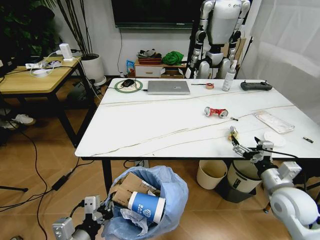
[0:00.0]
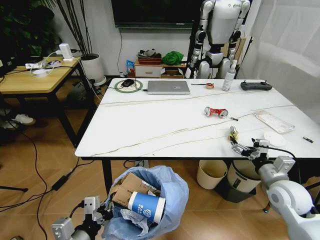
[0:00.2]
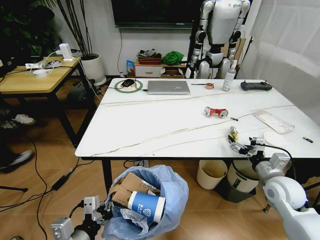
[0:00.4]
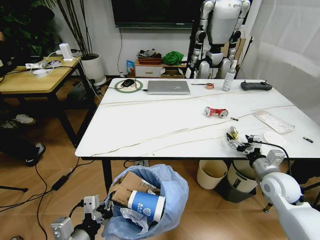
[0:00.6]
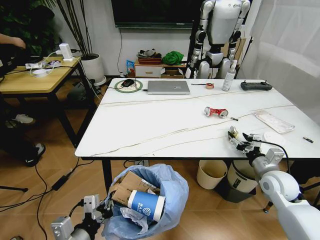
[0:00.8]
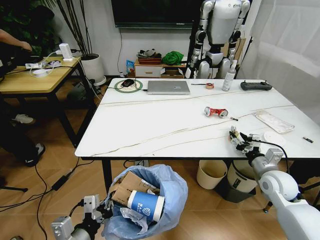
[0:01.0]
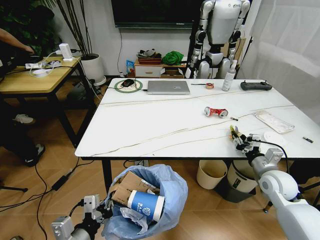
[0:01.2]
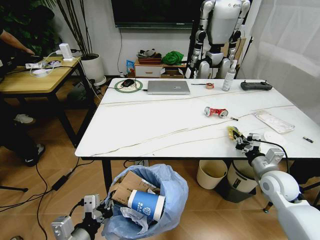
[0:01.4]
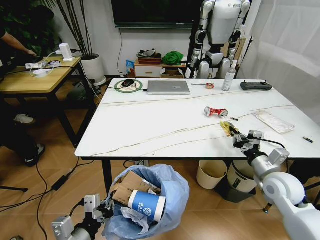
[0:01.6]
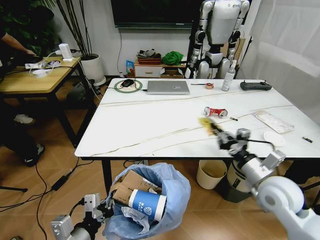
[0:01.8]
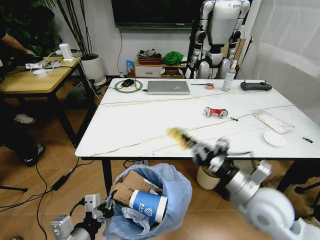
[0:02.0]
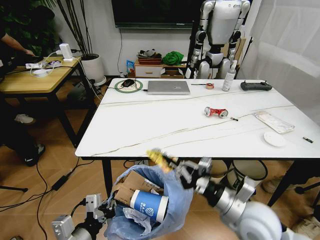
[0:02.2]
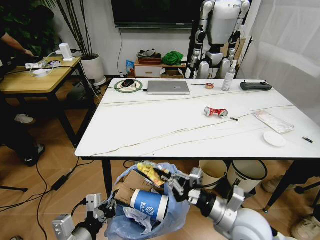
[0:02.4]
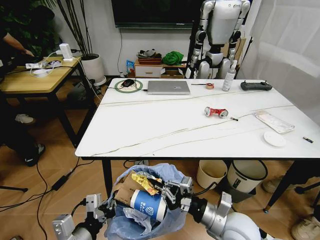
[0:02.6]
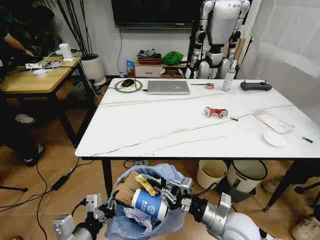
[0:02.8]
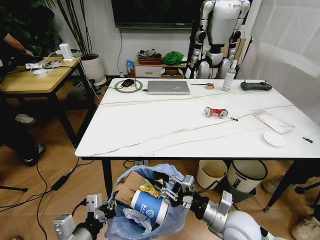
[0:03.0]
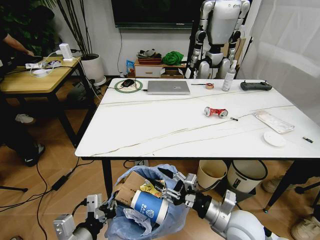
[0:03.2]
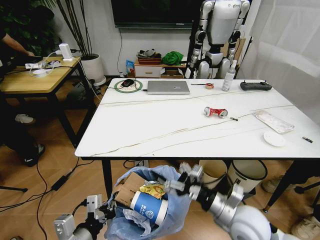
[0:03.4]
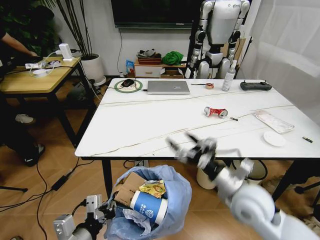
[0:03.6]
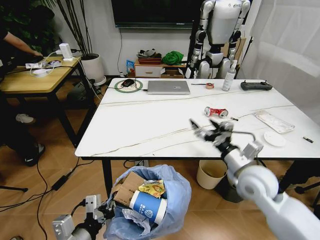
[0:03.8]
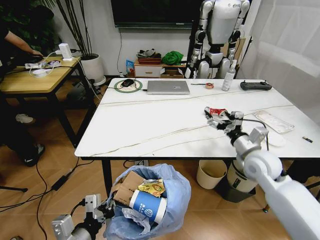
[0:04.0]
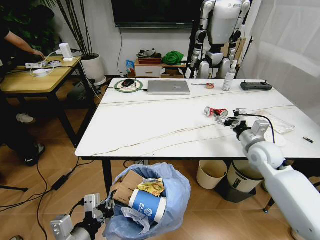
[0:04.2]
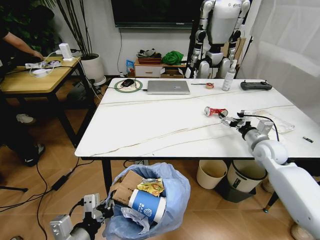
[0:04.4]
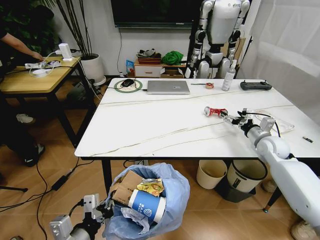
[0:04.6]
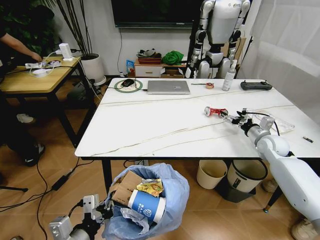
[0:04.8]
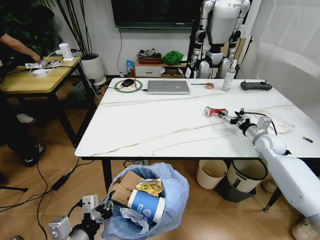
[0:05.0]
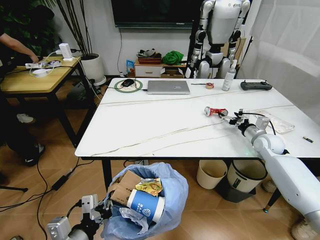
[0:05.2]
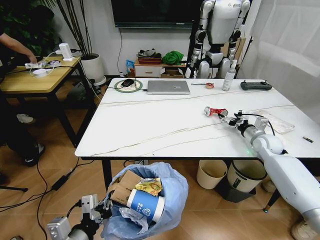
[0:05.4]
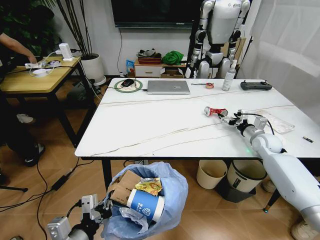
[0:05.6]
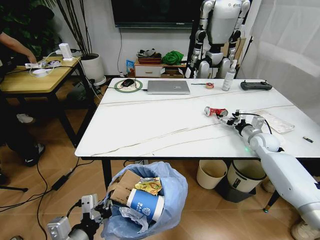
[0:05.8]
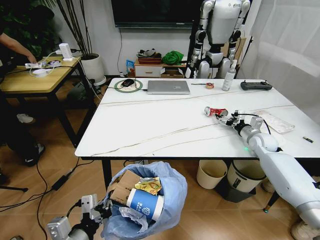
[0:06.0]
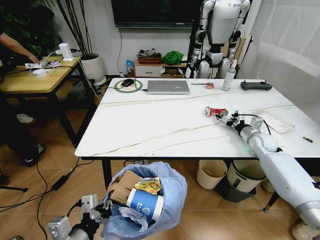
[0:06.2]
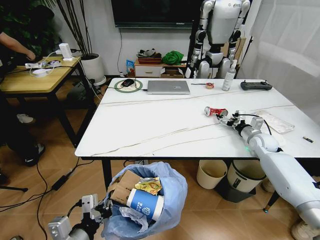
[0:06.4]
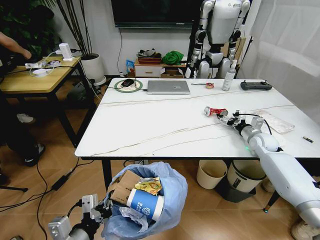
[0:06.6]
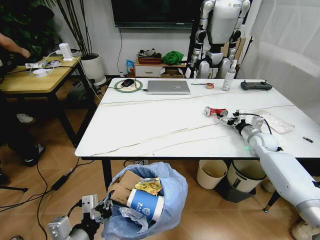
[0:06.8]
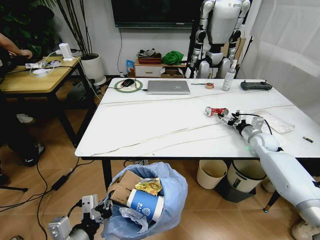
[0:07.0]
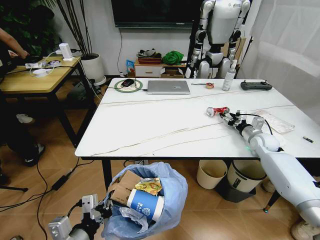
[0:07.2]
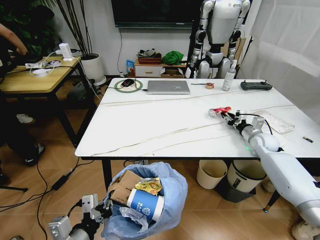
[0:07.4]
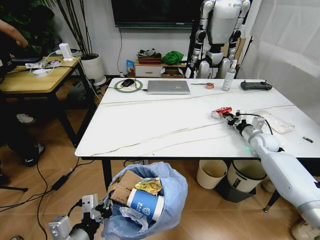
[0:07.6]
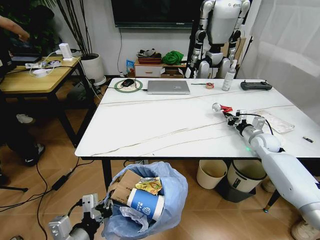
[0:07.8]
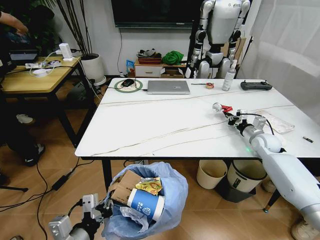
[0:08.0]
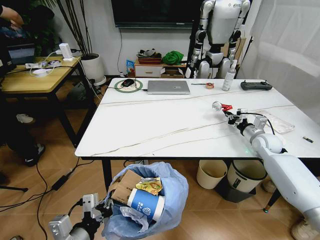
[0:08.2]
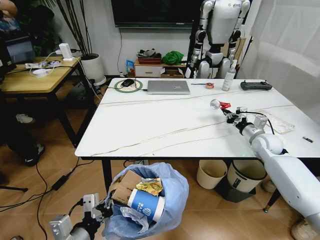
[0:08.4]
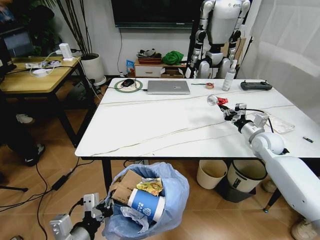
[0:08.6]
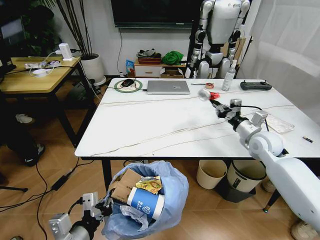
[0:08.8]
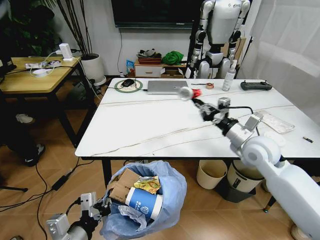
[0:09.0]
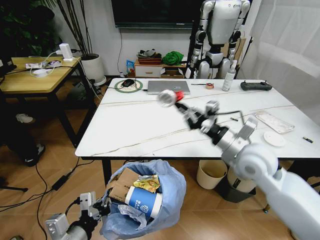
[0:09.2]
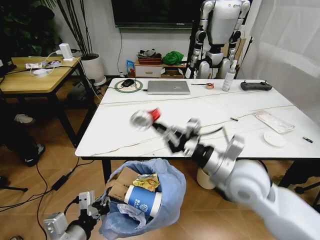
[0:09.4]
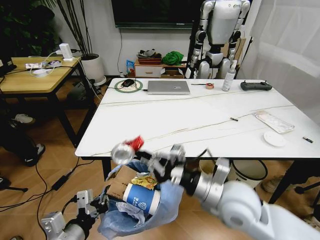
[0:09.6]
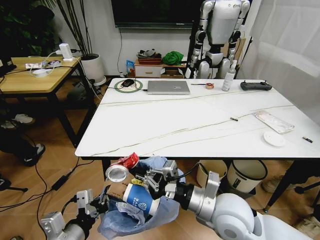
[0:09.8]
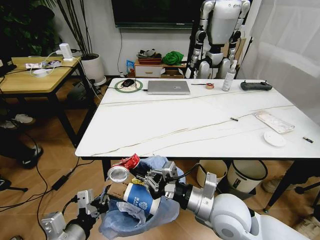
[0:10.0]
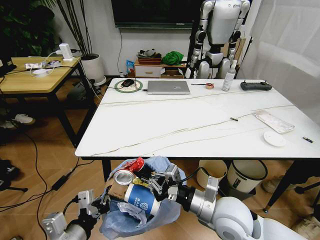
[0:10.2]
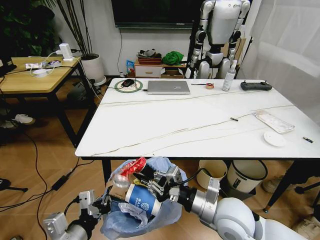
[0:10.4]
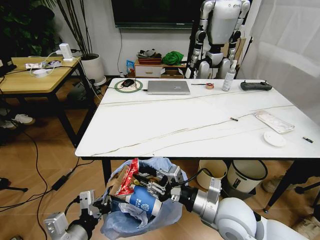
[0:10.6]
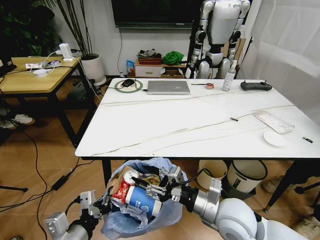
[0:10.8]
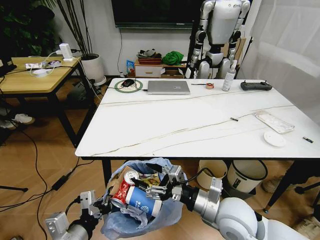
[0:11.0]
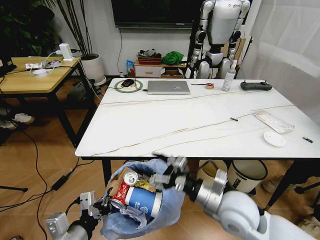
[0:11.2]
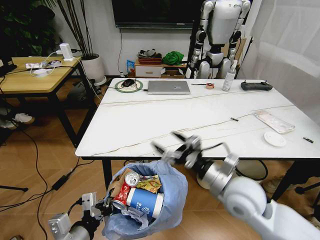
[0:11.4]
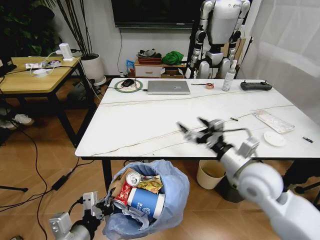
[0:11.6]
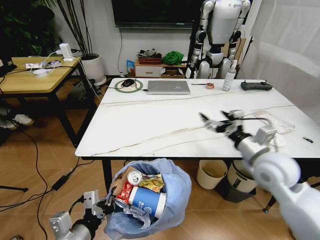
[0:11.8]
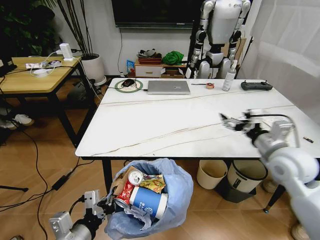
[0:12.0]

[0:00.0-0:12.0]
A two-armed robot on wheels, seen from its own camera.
Task of the whole recording: Pick up the trash bin and place the trash from the table into it.
0:00.0 to 0:01.6: The right gripper heads forward, covering roughly 5 cm, and closes up.
0:01.6 to 0:03.0: The right gripper shifts about 20 cm to the left and backward.
0:03.0 to 0:04.4: The right gripper is displaced forward and to the right by roughly 30 cm, and opens.
0:04.4 to 0:06.0: The right gripper heads forward, covering roughly 5 cm.
0:06.0 to 0:07.6: The right gripper closes up.
0:07.6 to 0:09.0: The right gripper is displaced to the left, backward and upward by some 20 cm.
0:09.0 to 0:10.4: The right gripper goes some 20 cm backward and to the left.
0:10.4 to 0:12.0: The right gripper is displaced to the right, forward and upward by some 20 cm, and opens.

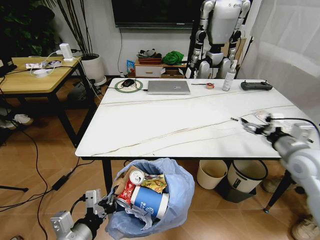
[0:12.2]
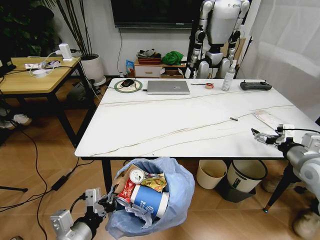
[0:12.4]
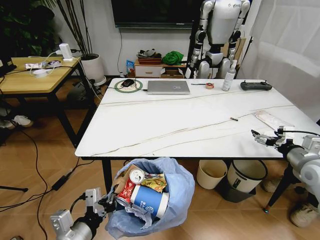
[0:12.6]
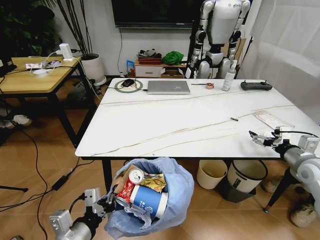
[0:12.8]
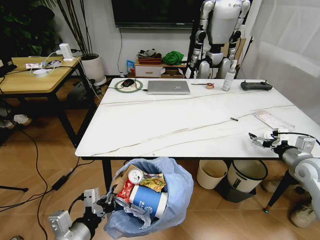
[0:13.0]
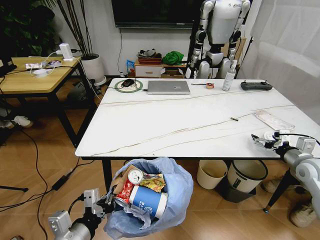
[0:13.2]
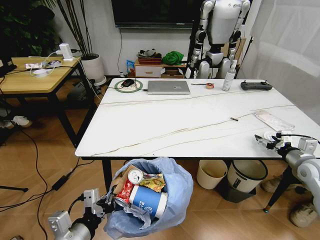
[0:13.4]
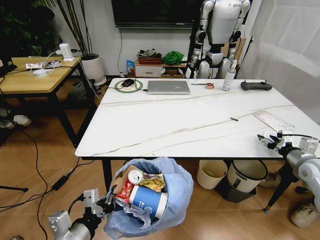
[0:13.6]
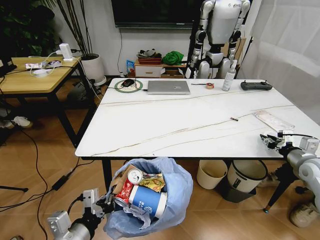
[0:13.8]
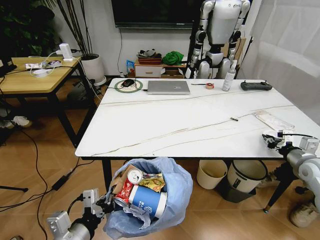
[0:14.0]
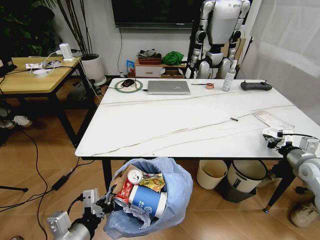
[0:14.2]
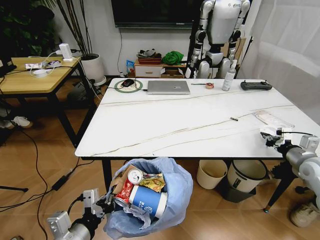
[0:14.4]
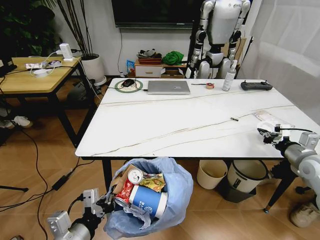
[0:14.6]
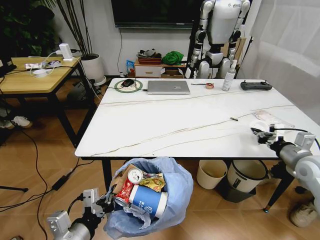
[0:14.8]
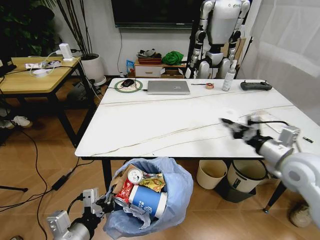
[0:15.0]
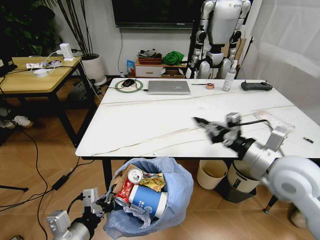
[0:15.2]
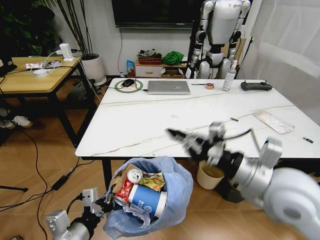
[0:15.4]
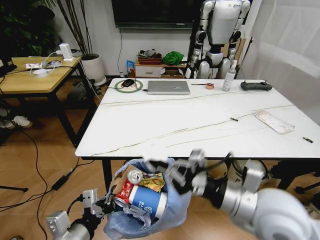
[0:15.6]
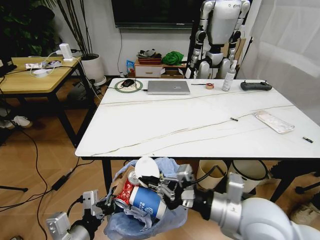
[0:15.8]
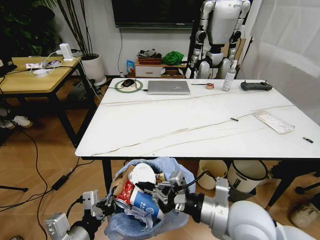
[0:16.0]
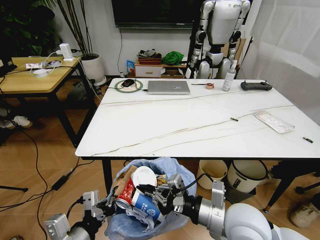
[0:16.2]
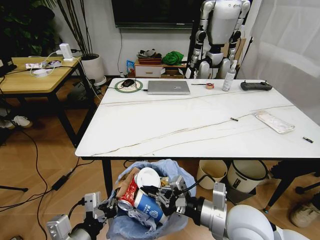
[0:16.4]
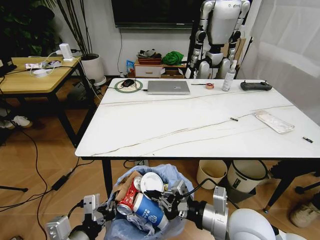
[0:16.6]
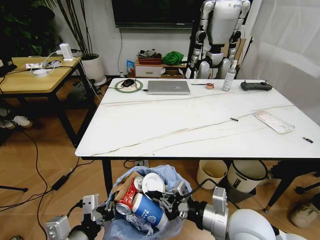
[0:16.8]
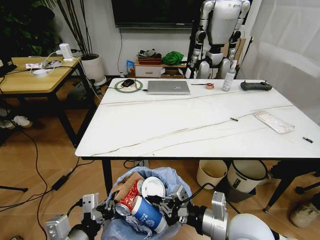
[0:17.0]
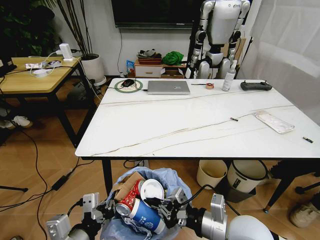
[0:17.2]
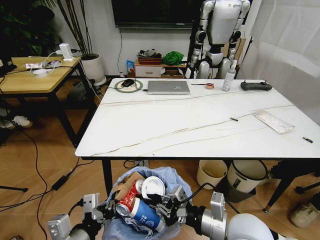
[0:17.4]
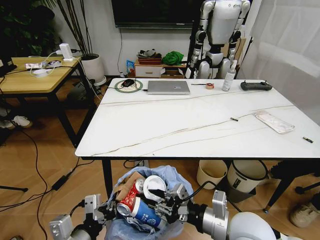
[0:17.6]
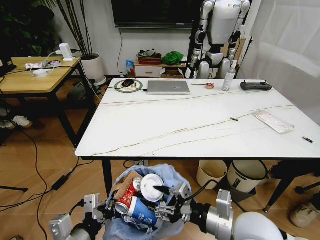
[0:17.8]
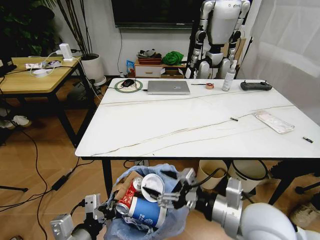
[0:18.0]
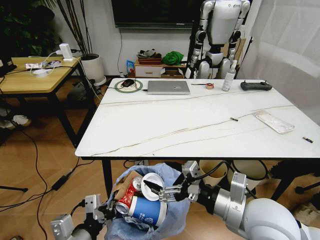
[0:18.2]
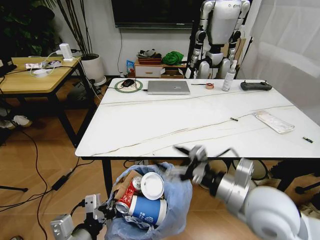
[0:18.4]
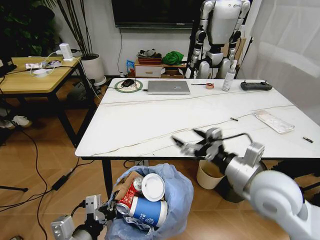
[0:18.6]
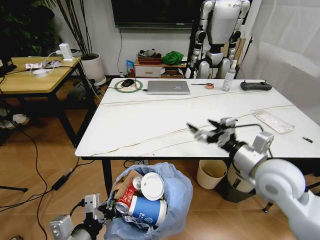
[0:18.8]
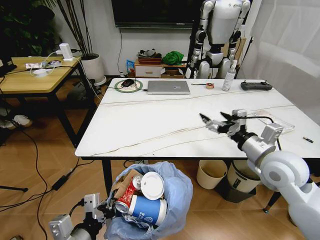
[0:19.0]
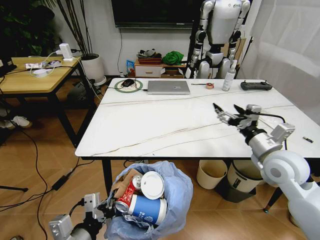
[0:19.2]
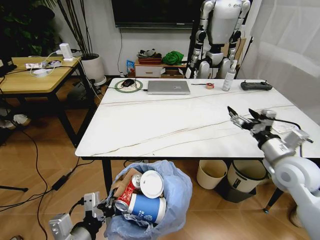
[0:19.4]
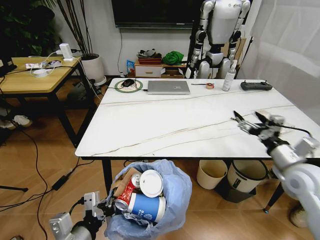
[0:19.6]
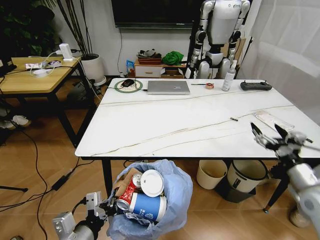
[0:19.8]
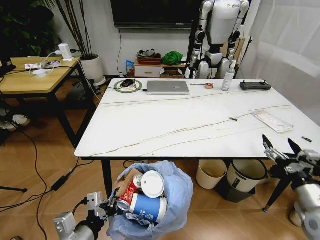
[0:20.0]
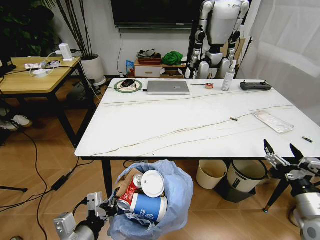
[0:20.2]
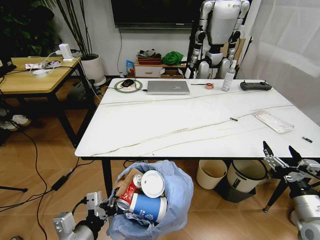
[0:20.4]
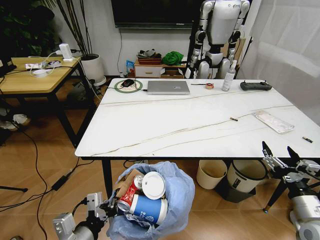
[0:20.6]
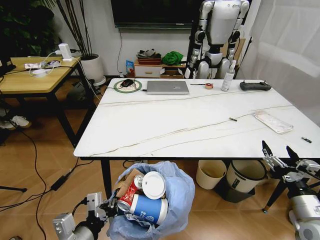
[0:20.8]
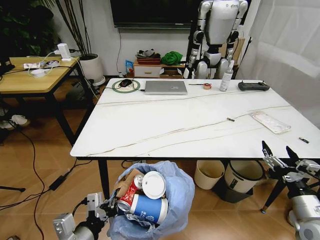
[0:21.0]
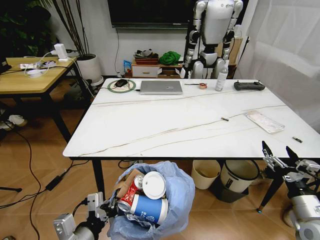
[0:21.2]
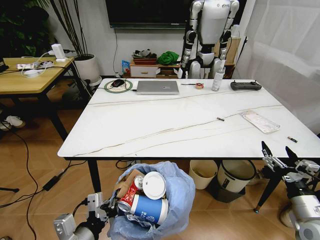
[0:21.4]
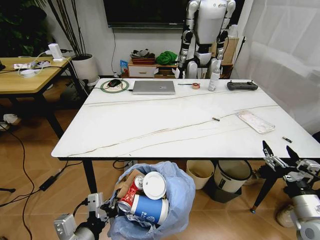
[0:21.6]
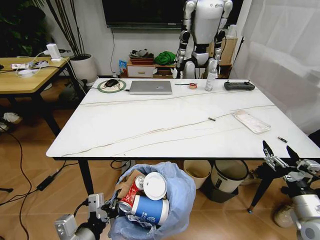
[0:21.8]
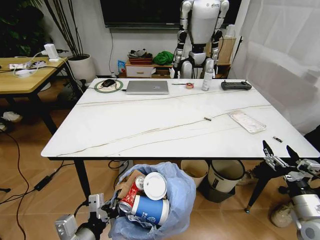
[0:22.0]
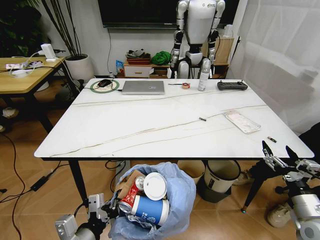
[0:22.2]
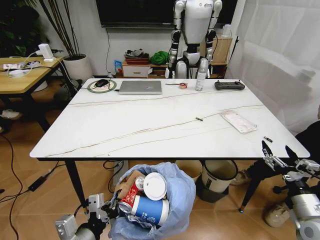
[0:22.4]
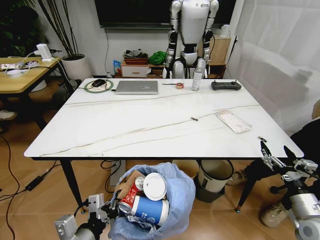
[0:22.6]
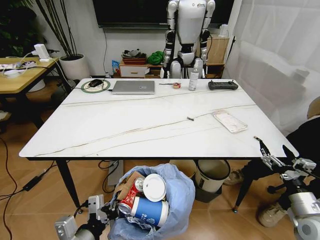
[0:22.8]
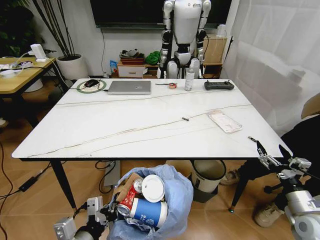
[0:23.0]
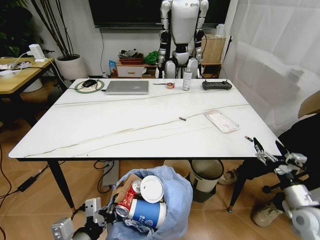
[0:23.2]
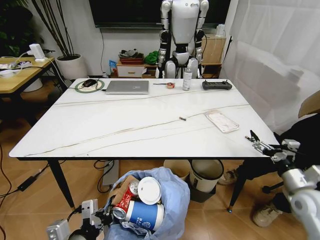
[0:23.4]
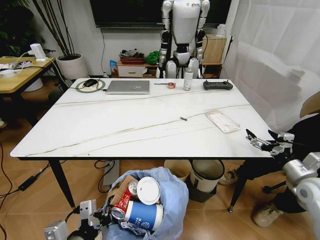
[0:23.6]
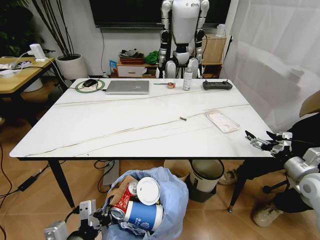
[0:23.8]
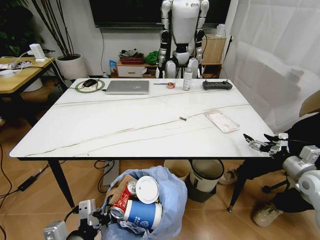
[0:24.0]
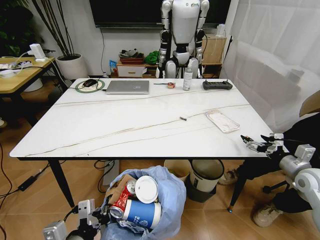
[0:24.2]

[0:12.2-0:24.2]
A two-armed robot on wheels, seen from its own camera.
Task of the whole recording: Pick up the trash bin and place the trash from the table into it.
0:12.2 to 0:13.8: The right gripper shifts roughly 10 cm to the right and downward, and closes.
0:13.8 to 0:15.2: The right gripper goes roughly 25 cm to the left and upward.
0:15.2 to 0:16.6: The right gripper heads to the left, downward and backward, covering some 15 cm.
0:16.6 to 0:18.2: The right gripper travels upward by some 5 cm, and opens up.
0:18.2 to 0:19.8: The right gripper moves to the right, about 20 cm.
0:19.8 to 0:21.2: The right gripper is displaced backward and downward by about 10 cm.
0:22.6 to 0:24.2: The right gripper is displaced forward and to the right by approximately 15 cm.
